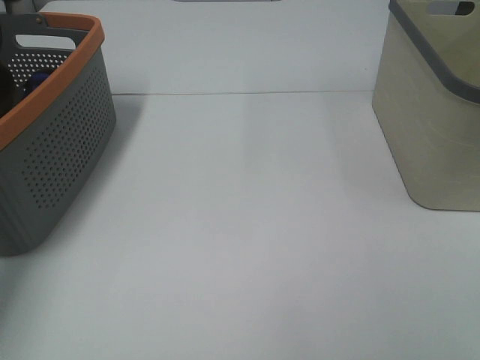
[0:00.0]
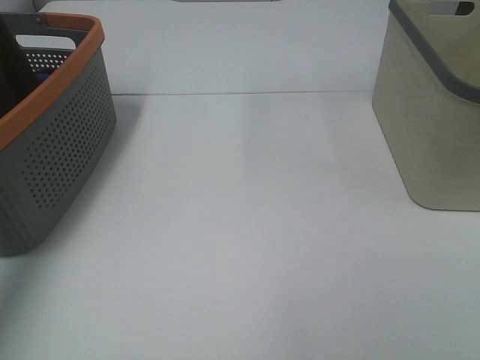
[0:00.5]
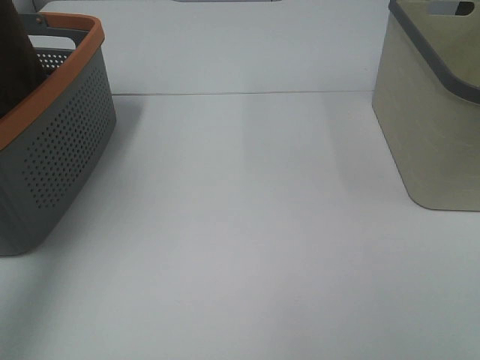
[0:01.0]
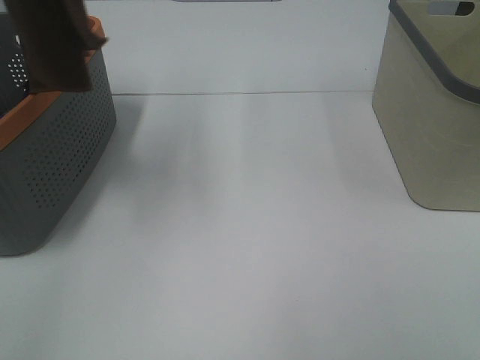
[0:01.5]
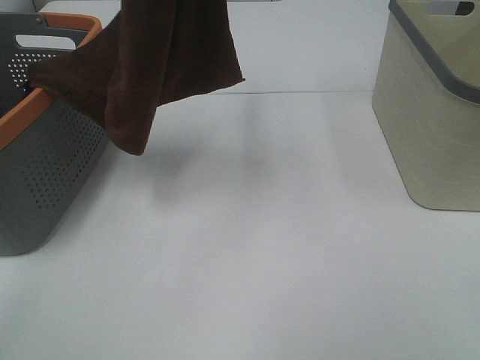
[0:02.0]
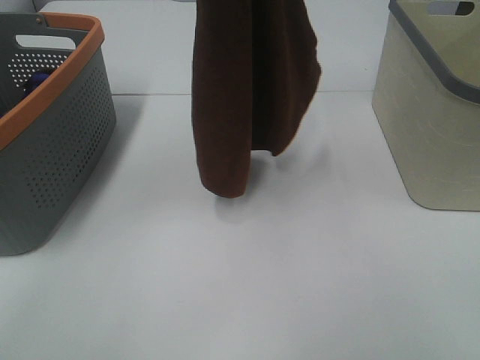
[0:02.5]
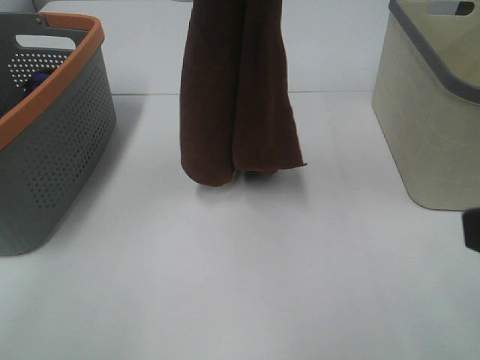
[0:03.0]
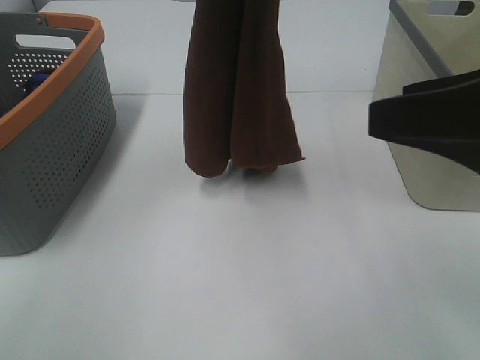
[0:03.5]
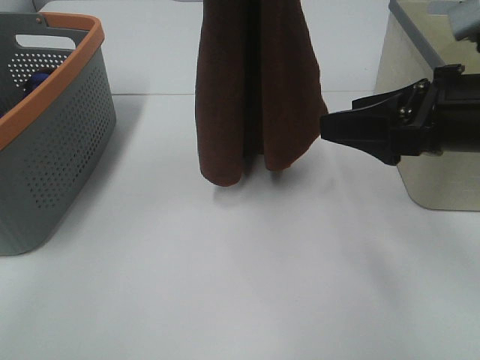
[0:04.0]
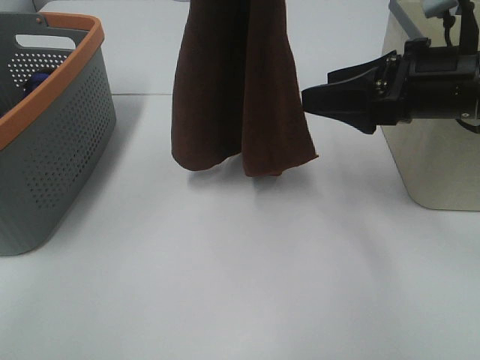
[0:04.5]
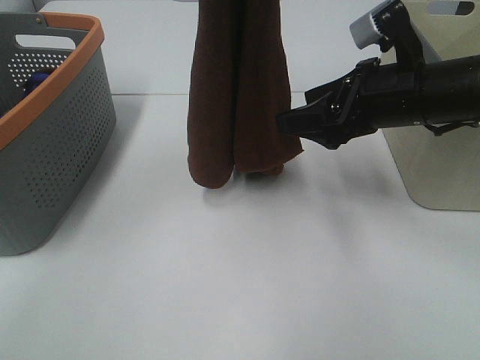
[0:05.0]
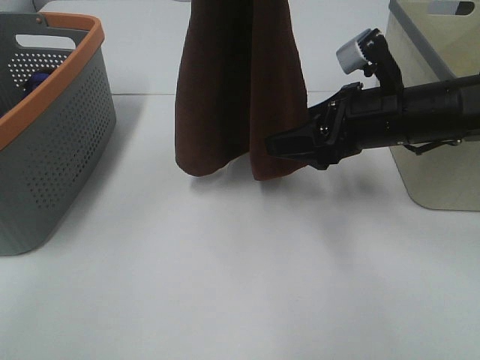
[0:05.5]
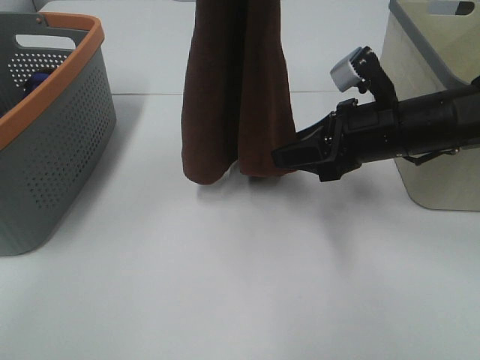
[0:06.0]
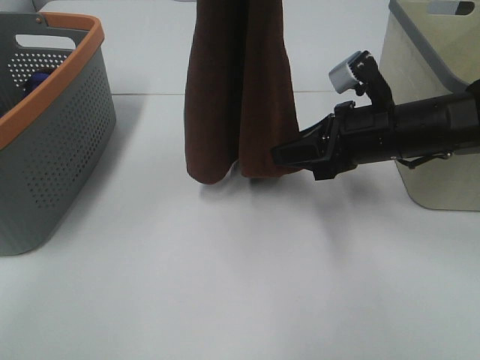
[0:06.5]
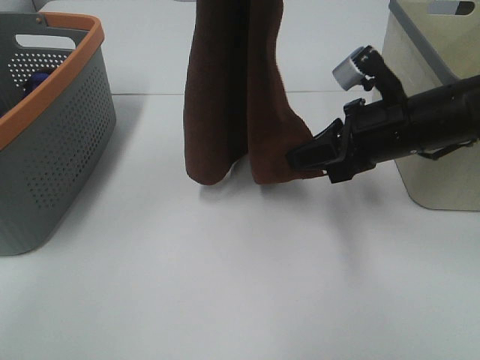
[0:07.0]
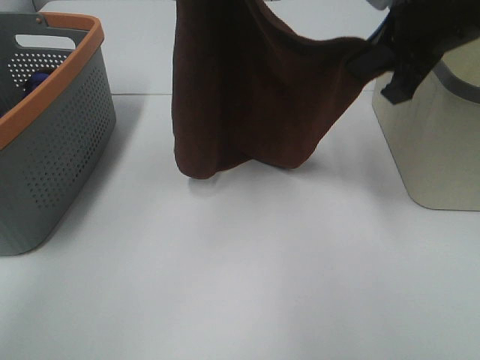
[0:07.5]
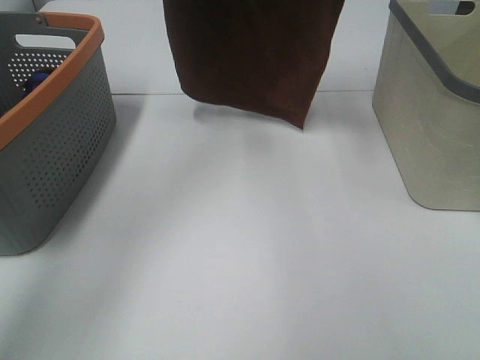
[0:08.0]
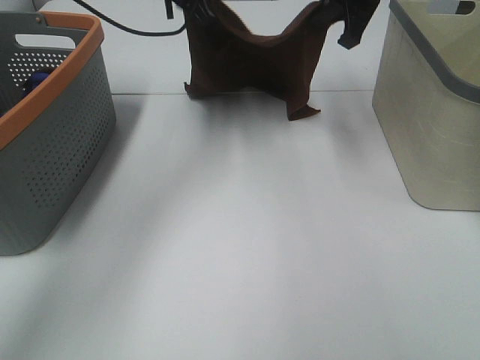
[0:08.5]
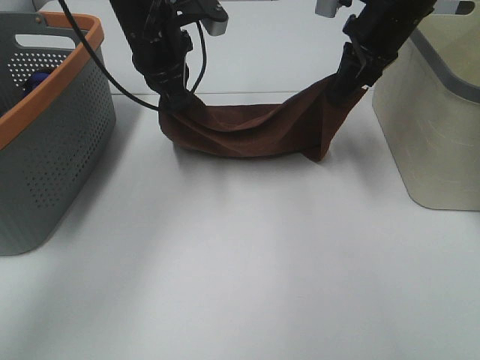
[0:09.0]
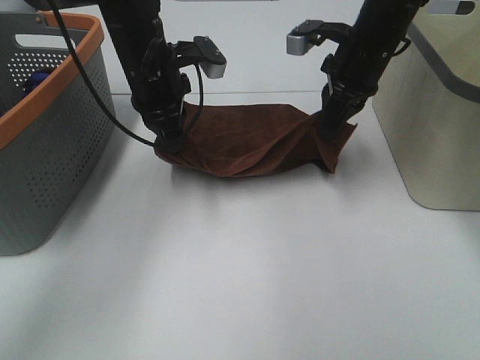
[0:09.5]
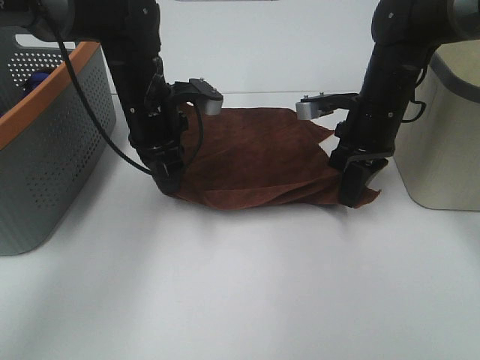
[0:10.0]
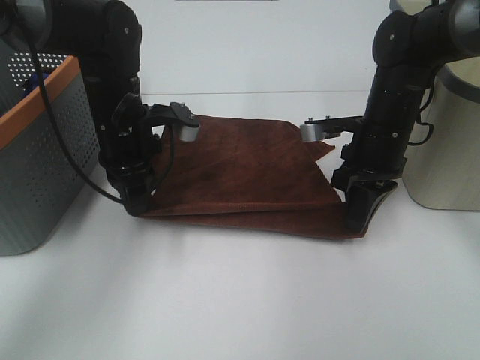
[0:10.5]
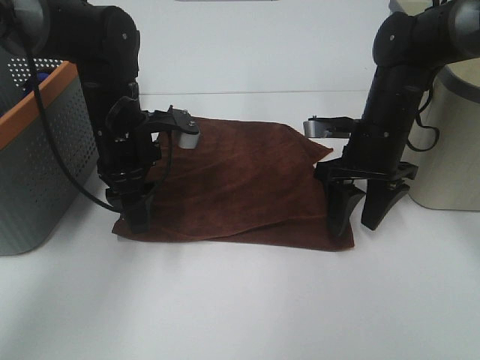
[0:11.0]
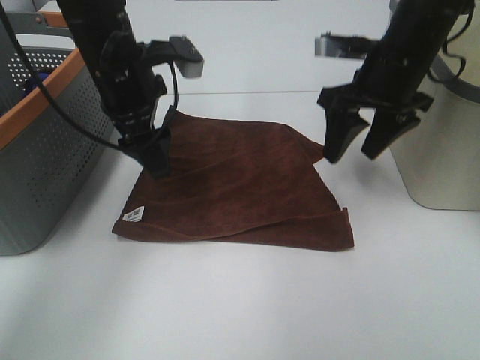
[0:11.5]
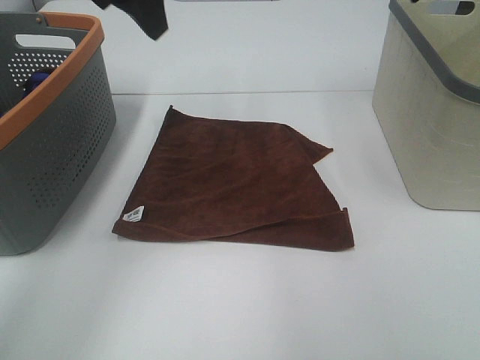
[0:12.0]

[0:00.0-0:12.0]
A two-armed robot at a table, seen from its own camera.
Task of the whole recording: Remove the towel and place it.
Step, 0:01.0 to 0:04.5: Right hand: grab a corner of the brown towel and straighten it.
Step, 0:05.0 to 0:07.0: Right hand: spread the brown towel flat on the table.
0:00.0 to 0:02.0: The left gripper travels to the right, upward and backward by approximately 35 cm.
0:02.0 to 0:04.0: The left gripper shifts by some 5 cm. The right gripper heads forward, covering roughly 25 cm.
0:04.0 to 0:06.0: The right gripper is displaced forward and downward by roughly 10 cm, and closes up.
0:06.0 to 0:08.0: The left gripper heads forward and to the left, covering approximately 15 cm. The right gripper is displaced upward and forward by about 25 cm, and closes up.
0:08.0 to 0:10.0: Both grippers move downward, about 20 cm.
0:10.0 to 0:12.0: The grippers both shift upward by roughly 25 cm. The left gripper opens up, while the right gripper opens.

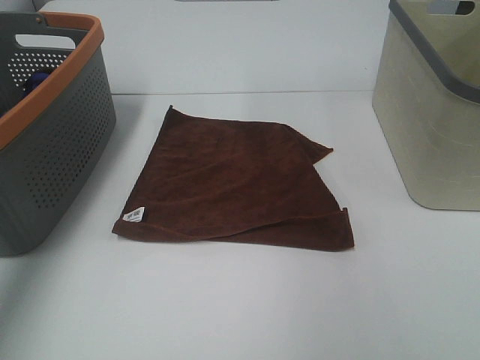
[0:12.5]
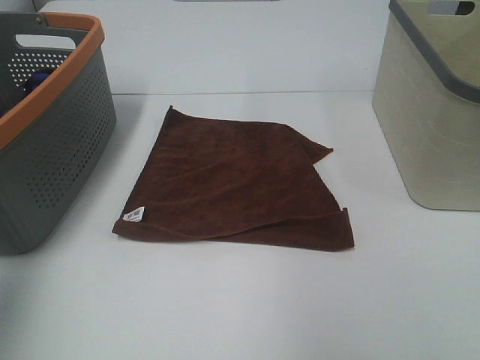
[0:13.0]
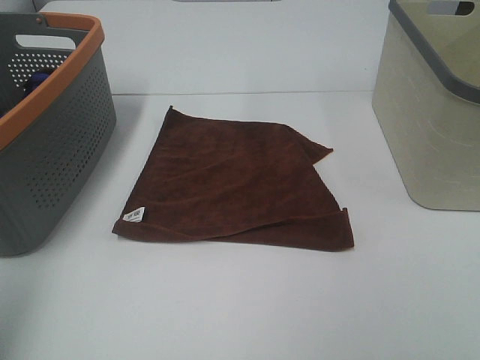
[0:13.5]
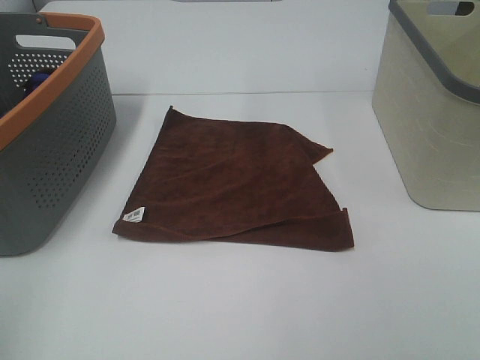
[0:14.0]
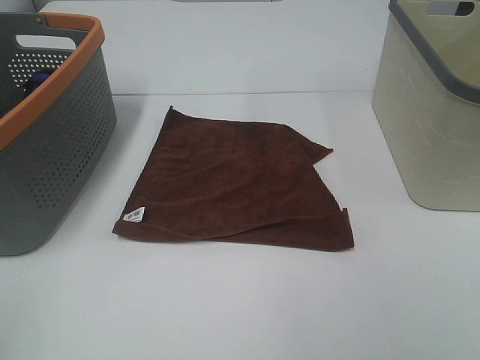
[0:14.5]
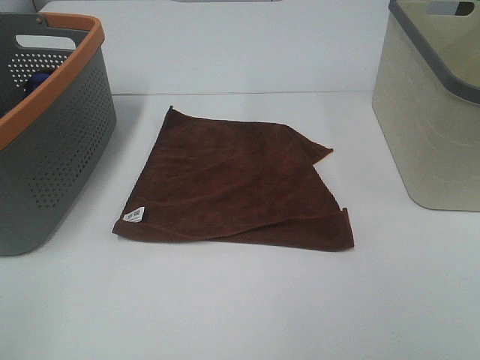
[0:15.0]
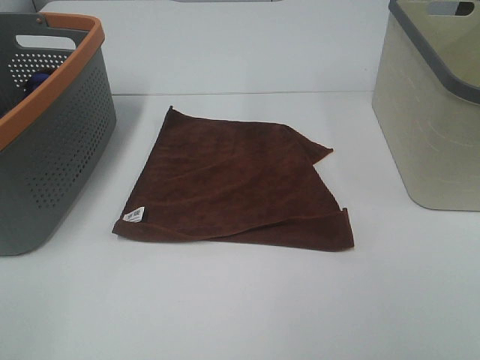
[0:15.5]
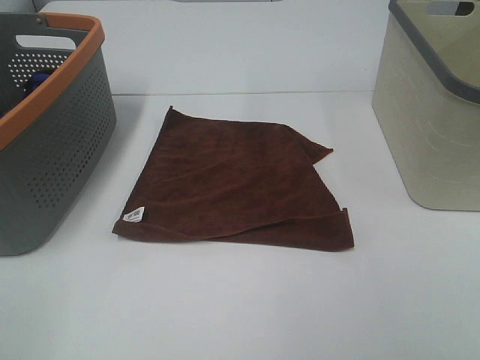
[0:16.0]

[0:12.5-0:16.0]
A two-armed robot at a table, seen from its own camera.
Task of the whole recording: Remove the towel and place it.
0:12.5 to 0:14.5: The left gripper heads backward, covering about 40 cm.

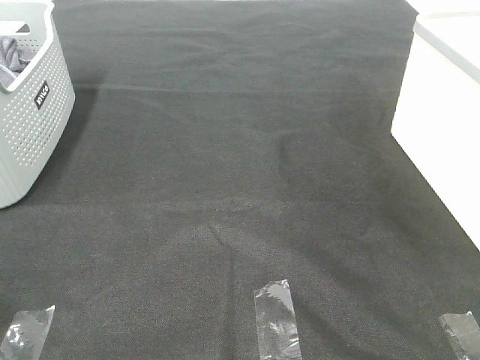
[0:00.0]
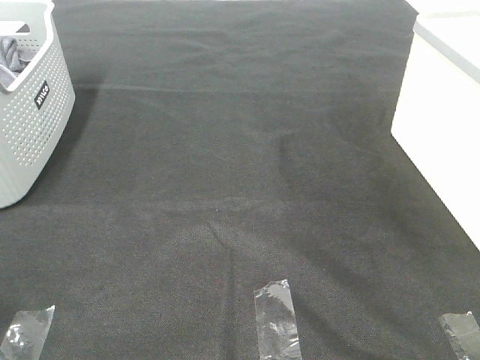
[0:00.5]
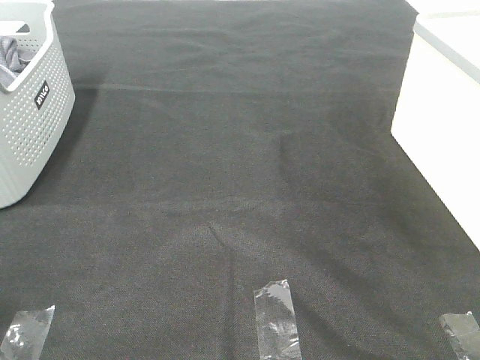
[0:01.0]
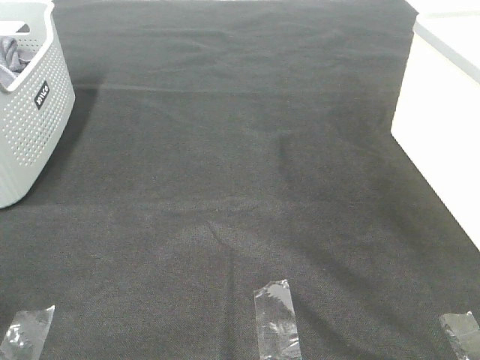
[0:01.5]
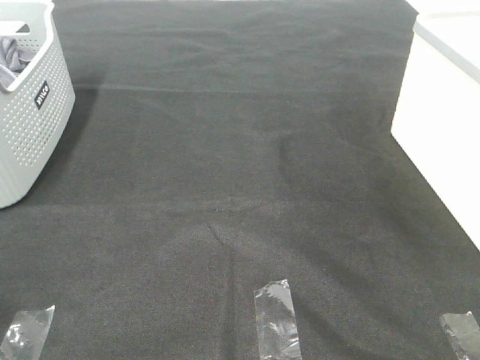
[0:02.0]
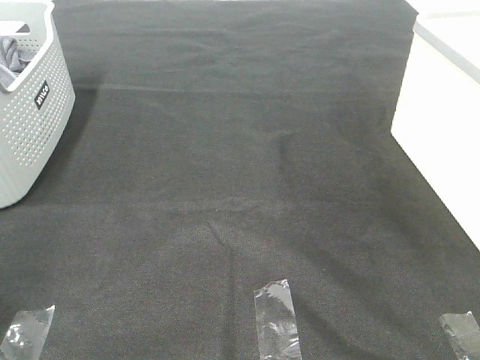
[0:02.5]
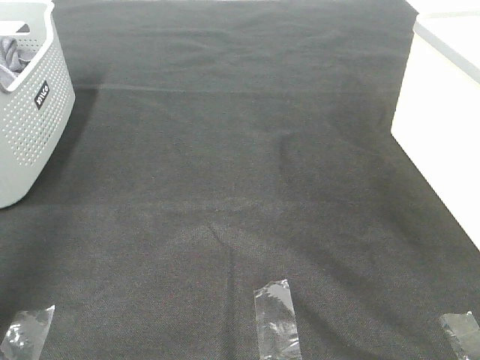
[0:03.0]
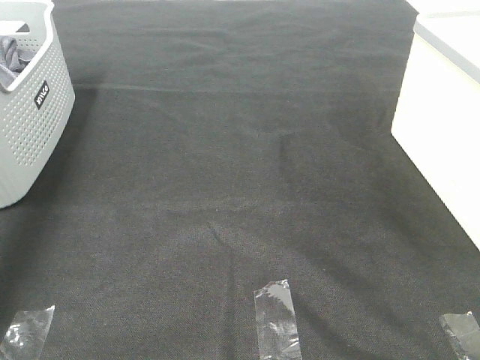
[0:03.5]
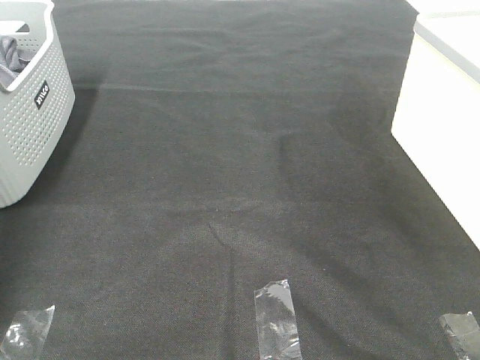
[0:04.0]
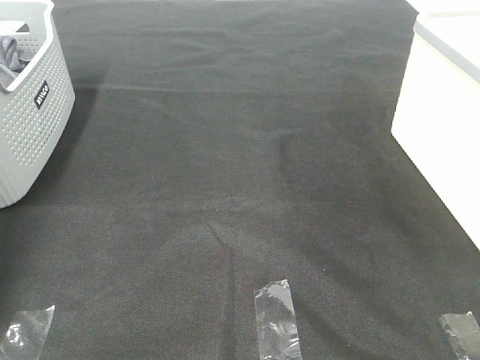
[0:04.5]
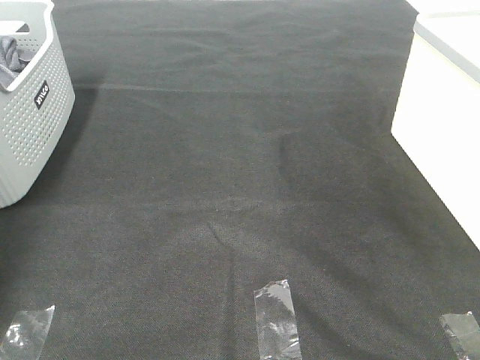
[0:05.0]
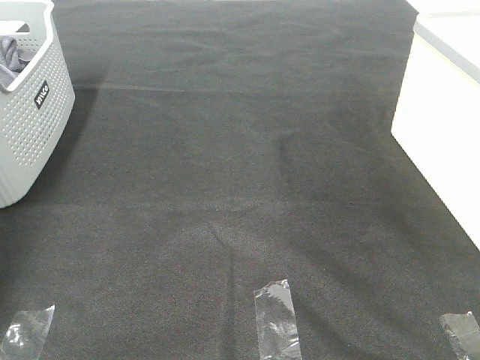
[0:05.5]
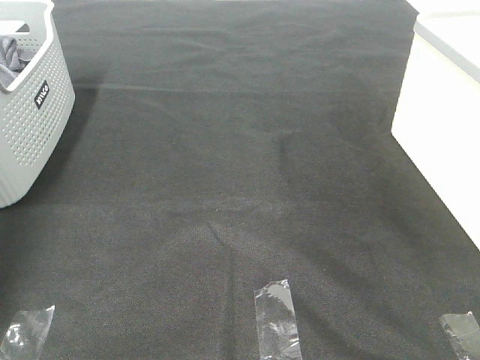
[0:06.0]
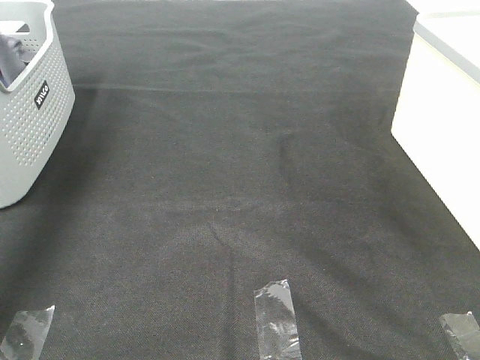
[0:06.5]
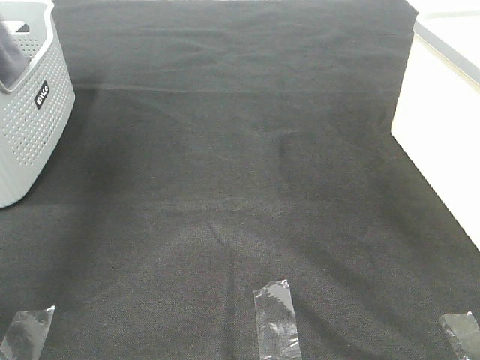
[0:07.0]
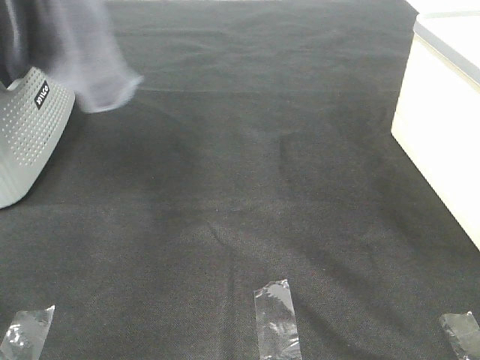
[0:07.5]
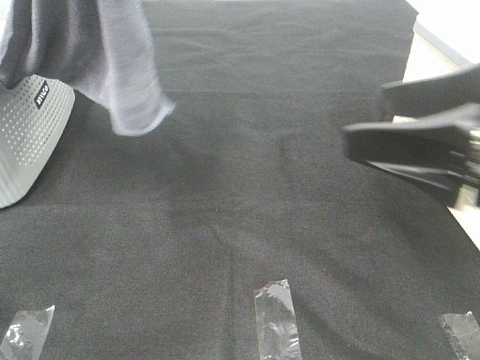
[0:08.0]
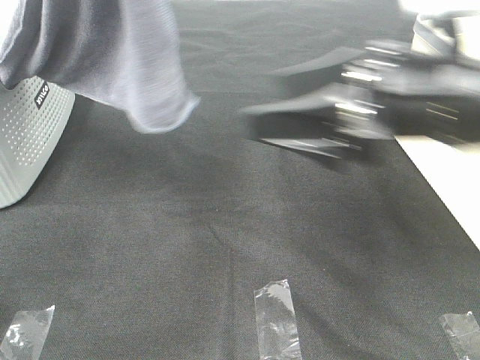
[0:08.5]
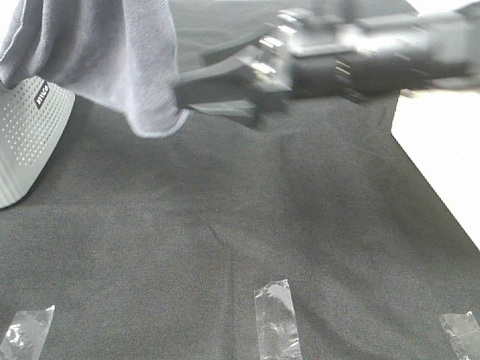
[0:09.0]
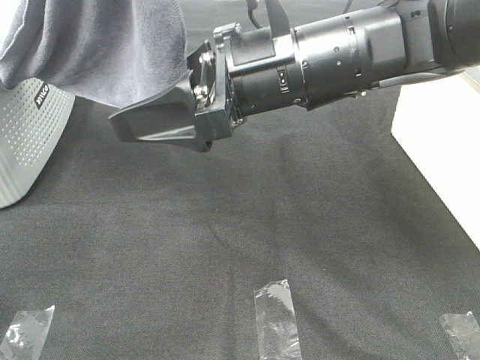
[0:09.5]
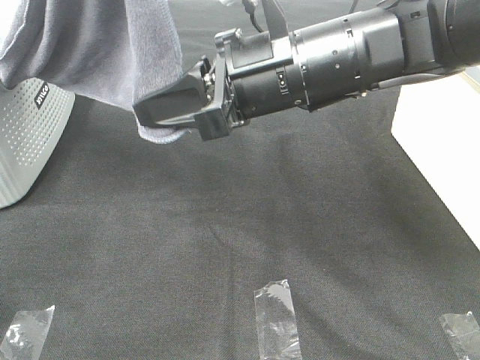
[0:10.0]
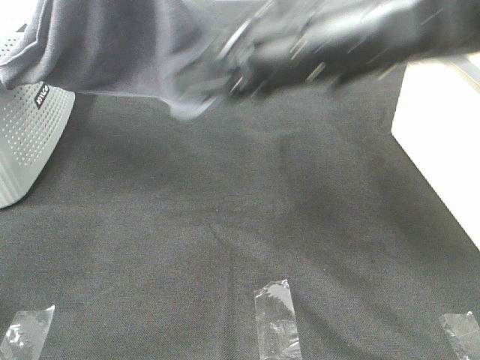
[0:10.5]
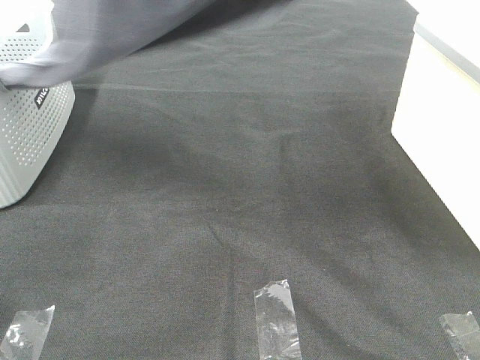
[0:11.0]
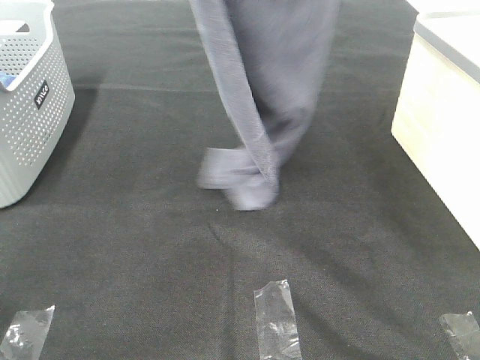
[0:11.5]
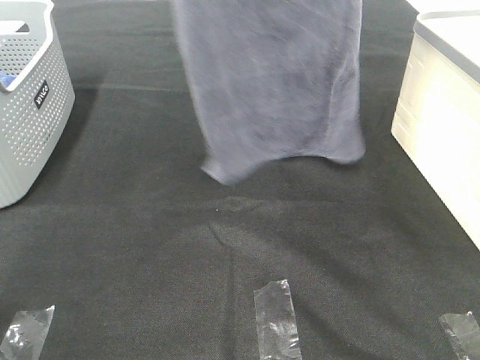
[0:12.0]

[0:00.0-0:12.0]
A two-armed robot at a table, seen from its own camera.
Task of the whole recording: Remove the towel and place it.
Step, 0:07.5 to 0:11.0: Right hand: grab a corner of the grey towel and straighten it.
0:00.0 to 0:02.0: Both grippers stay put.
0:02.0 to 0:04.0: The left gripper goes roughly 50 cm forward.
0:06.0 to 0:08.0: The right gripper travels forward and to the left by roughly 20 cm. The left gripper goes roughly 50 cm upward, to the right and backward.
0:08.0 to 0:10.0: The right gripper moves to the left and forward, about 20 cm, and closes.
0:10.0 to 0:12.0: The left gripper travels forward by some 15 cm; the right gripper moves upward, approximately 30 cm.
